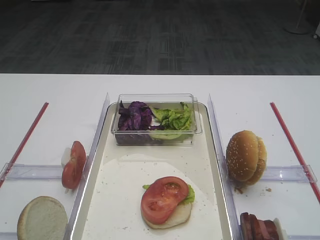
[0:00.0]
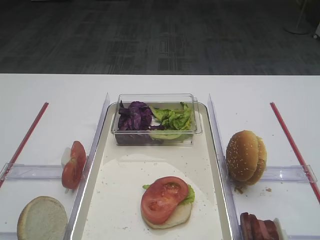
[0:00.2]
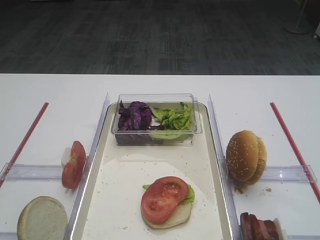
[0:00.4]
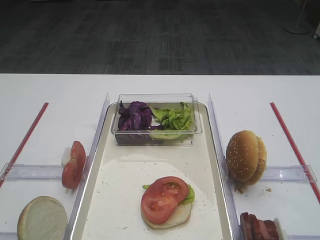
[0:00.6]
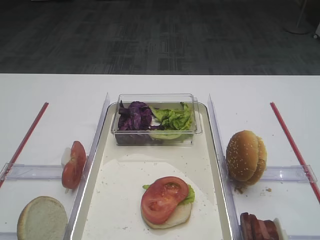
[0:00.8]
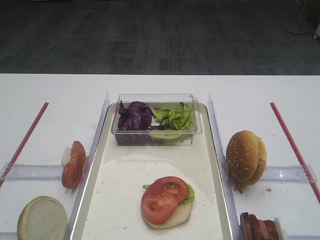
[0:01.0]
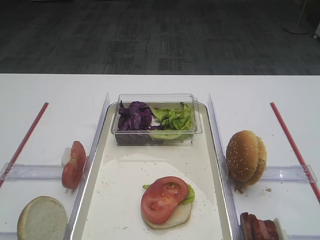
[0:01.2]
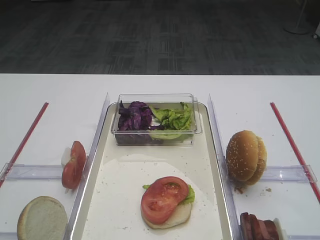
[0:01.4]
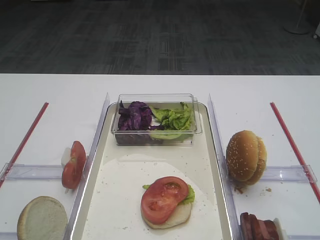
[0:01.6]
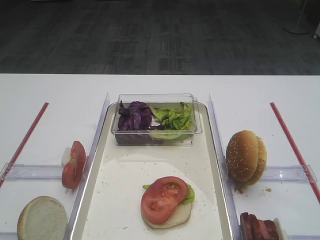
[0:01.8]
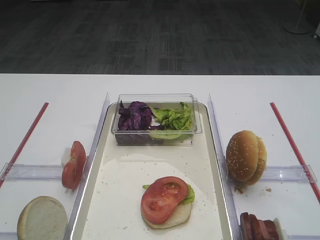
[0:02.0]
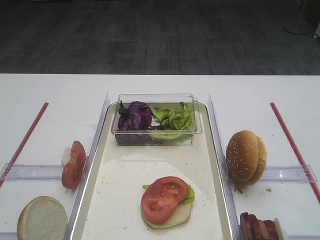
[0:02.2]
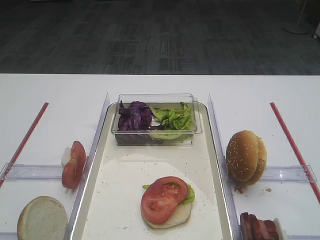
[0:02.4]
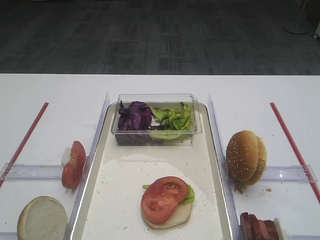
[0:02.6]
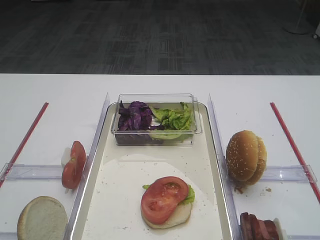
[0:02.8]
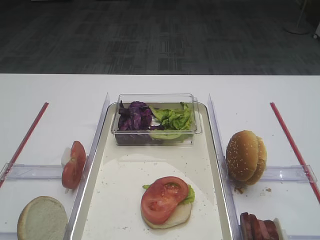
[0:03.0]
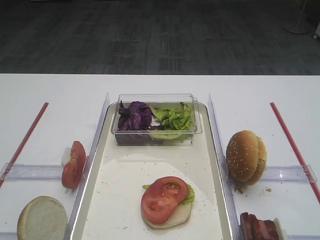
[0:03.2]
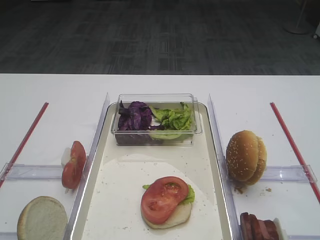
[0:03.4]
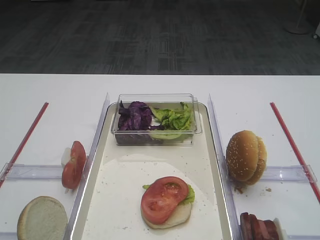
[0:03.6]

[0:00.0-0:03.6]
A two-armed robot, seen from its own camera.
0:01.8 to 0:03.6: Both grippers stay put.

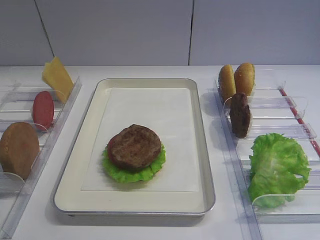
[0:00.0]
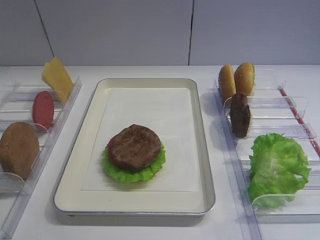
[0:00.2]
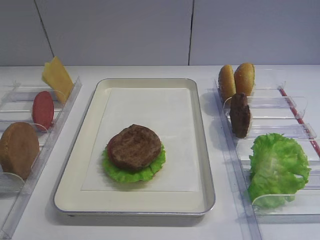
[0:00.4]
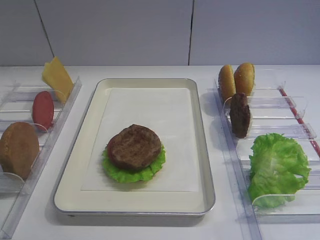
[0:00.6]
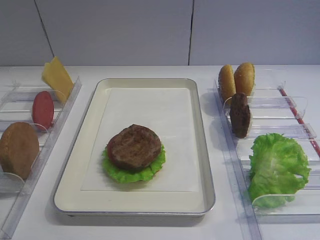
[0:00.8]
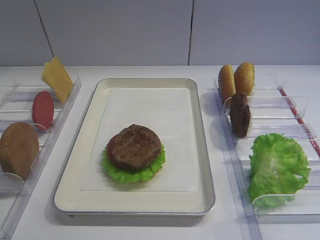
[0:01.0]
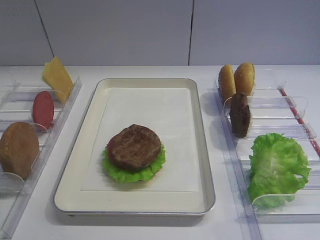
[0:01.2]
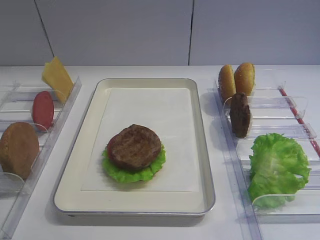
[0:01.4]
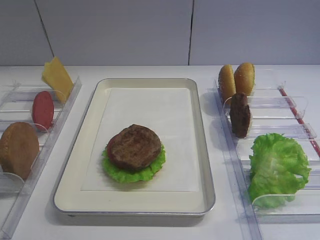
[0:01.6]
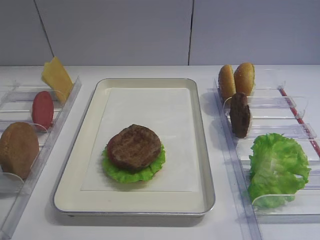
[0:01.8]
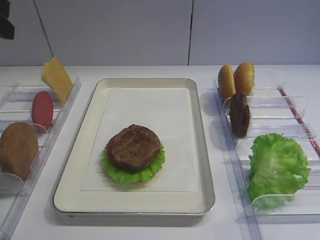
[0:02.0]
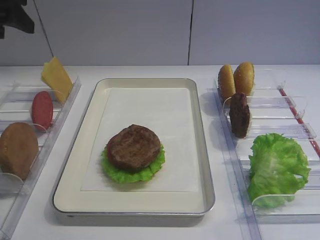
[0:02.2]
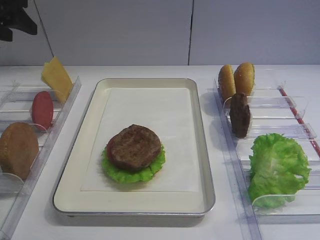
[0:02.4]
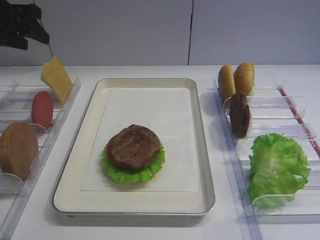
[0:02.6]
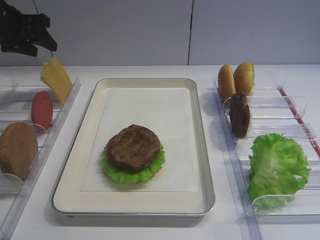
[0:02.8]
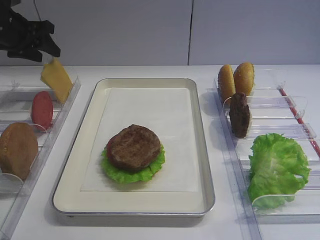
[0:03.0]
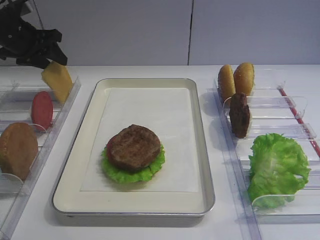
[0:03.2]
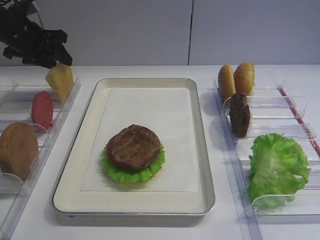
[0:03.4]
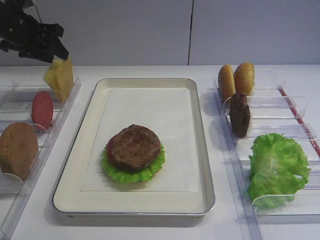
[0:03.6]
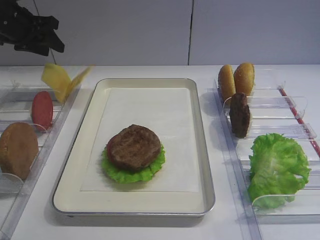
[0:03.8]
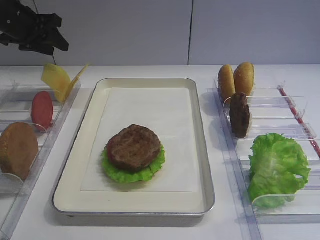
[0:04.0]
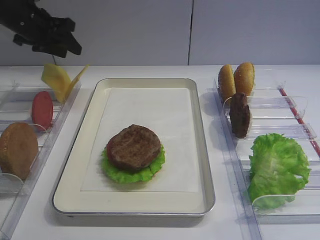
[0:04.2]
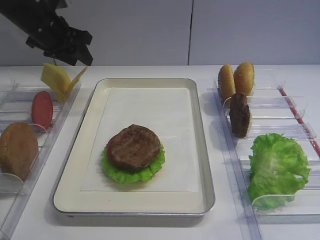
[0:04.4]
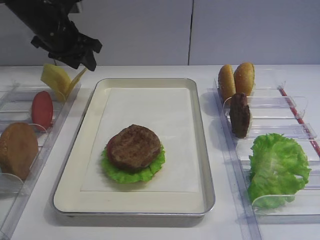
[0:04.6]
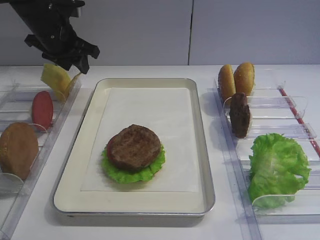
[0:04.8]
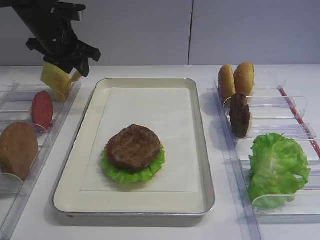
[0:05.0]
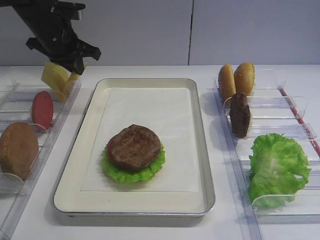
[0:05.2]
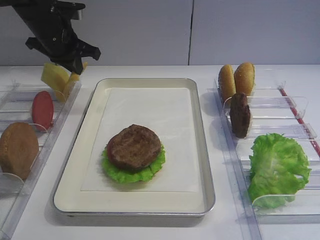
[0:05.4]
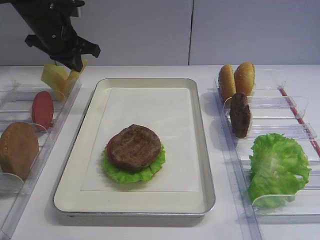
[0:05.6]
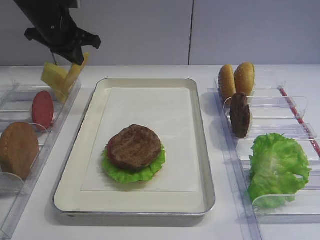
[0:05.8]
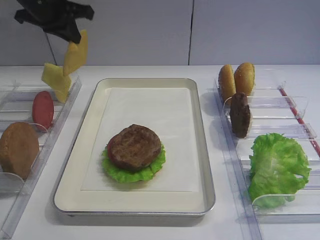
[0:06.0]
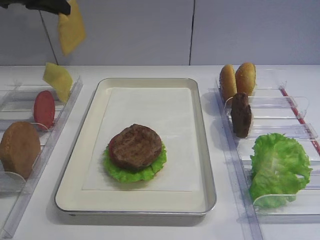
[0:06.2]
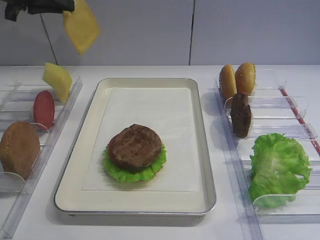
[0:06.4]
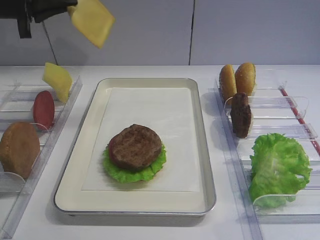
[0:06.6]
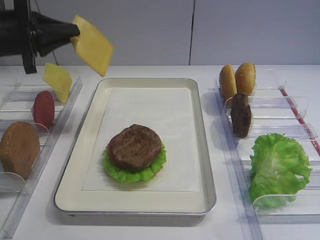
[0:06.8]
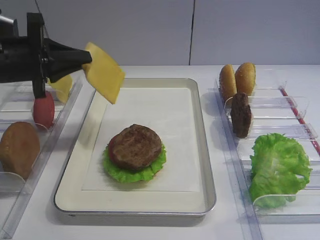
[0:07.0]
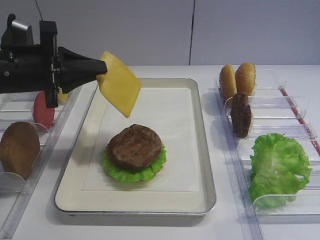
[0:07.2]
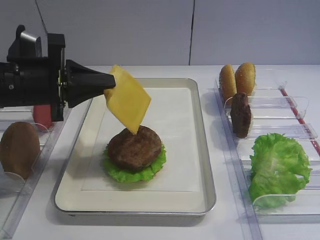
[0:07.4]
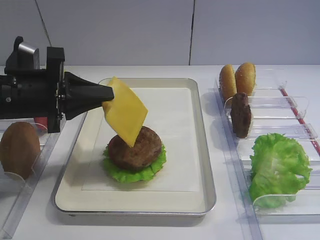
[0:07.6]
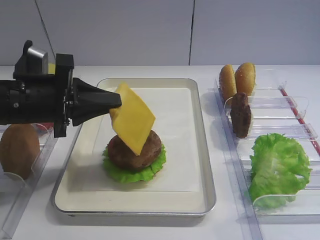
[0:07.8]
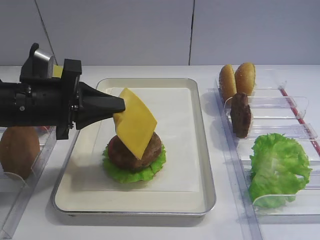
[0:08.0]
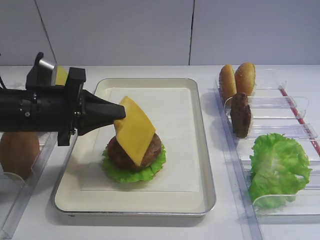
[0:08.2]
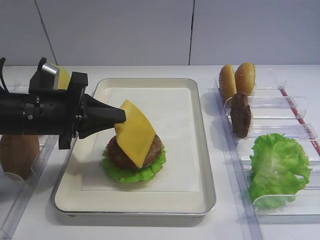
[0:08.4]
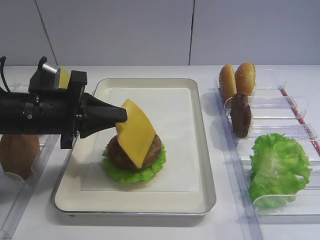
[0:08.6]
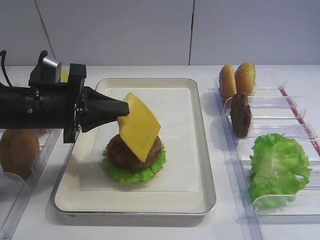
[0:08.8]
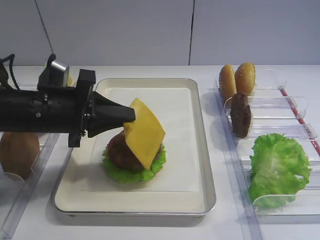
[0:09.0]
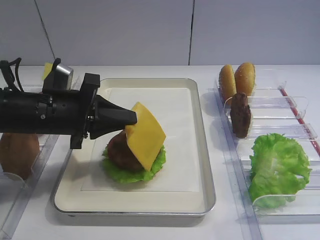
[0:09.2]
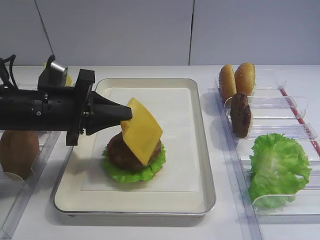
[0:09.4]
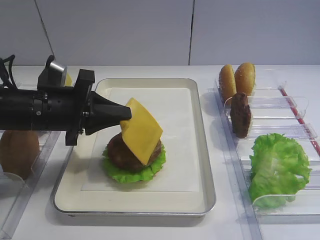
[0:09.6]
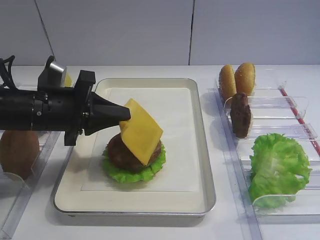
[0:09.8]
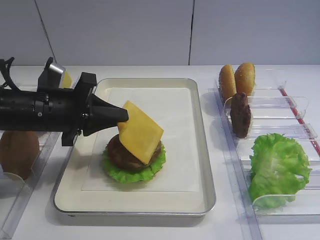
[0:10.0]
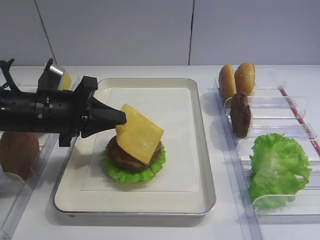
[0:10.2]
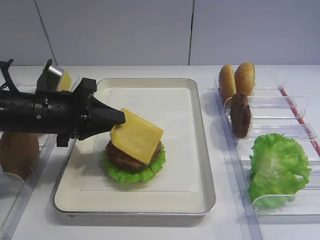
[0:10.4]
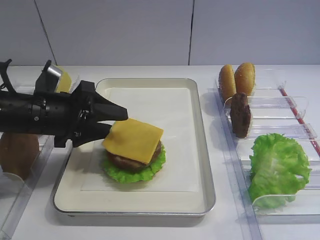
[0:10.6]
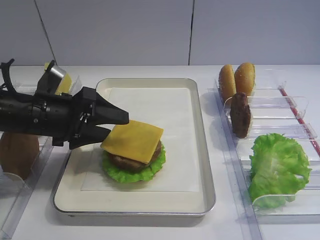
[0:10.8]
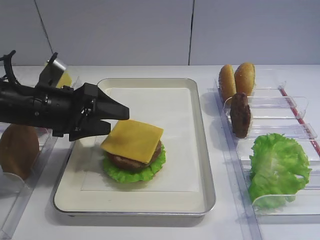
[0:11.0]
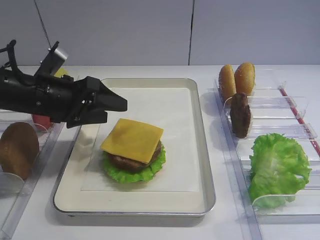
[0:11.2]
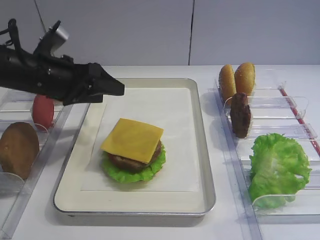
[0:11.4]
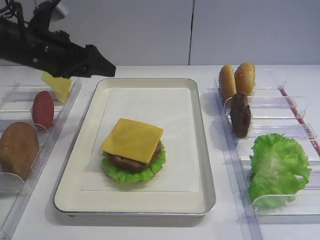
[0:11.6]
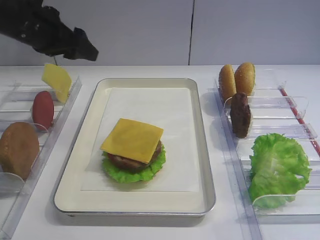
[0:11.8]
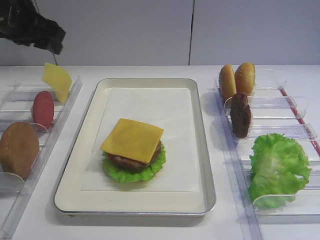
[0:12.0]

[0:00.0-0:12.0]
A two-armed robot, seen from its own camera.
Step, 0:00.0 to 0:05.8: Pick up the cheese slice with the left gripper.
Step, 0:06.0 to 0:11.8: Place the cheese slice on the cutlet with the left gripper.
0:01.6 to 0:03.0: The left gripper is displaced forward by about 35 cm.
0:03.0 to 0:04.4: The left gripper moves to the right, some 10 cm.
0:04.4 to 0:06.0: The left gripper travels upward by some 5 cm, and closes.
0:06.0 to 0:07.6: The left gripper shifts approximately 20 cm backward and downward.
0:07.6 to 0:10.4: The grippers move only a little.
0:10.4 to 0:12.0: The left gripper travels upward, forward and to the left by roughly 15 cm, and opens up.

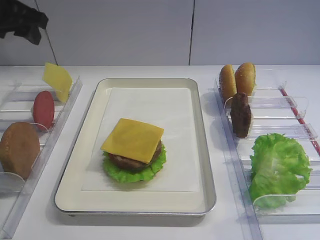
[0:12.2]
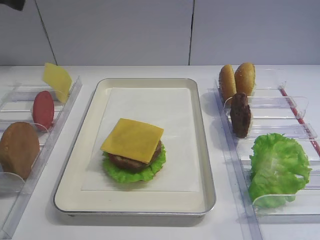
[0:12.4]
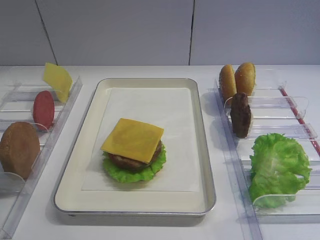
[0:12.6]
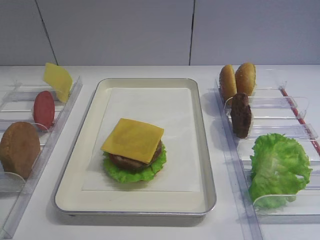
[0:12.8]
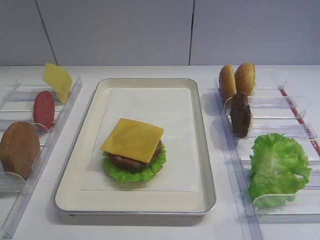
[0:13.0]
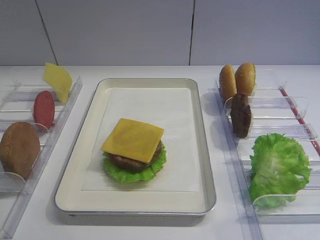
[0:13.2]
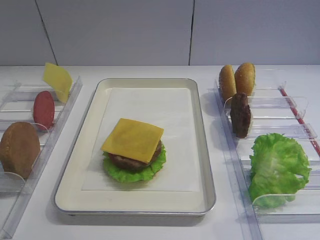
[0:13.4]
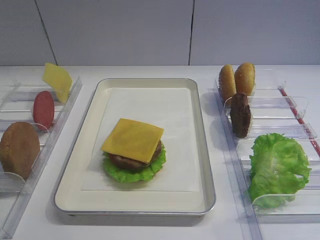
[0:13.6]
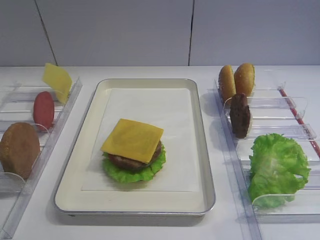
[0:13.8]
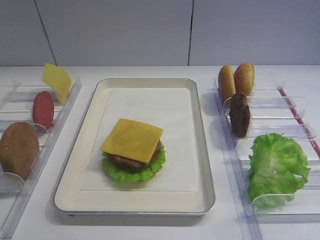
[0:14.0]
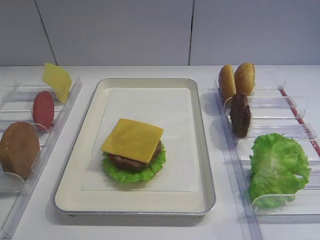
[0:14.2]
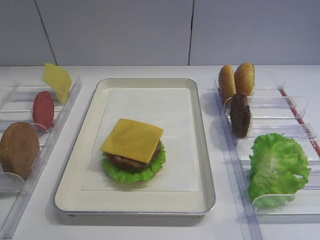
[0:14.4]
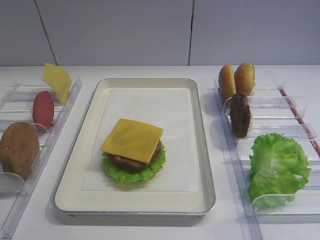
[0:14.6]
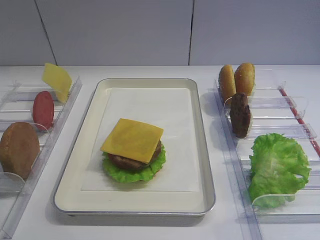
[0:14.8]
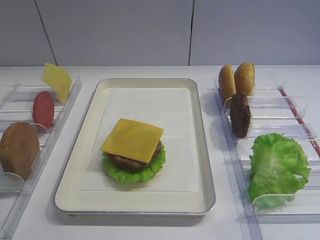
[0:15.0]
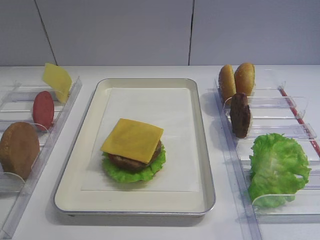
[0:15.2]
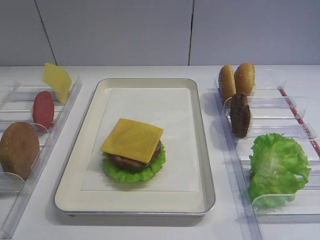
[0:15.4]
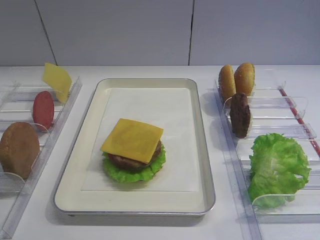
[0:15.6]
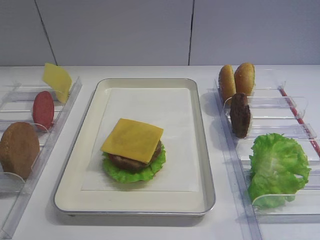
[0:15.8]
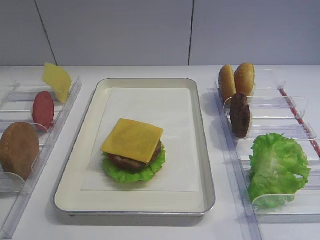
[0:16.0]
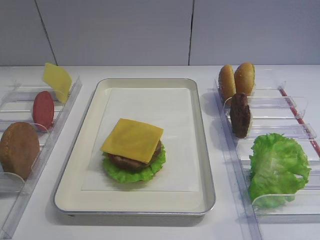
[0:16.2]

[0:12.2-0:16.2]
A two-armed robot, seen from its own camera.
0:12.2 to 0:13.6: The left gripper moves backward, some 35 cm.
0:14.8 to 0:16.2: Neither gripper changes place.

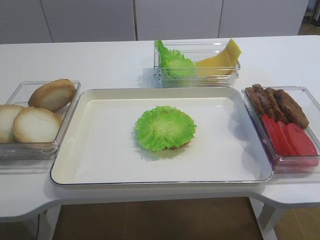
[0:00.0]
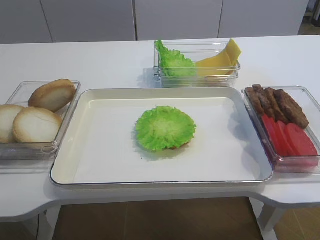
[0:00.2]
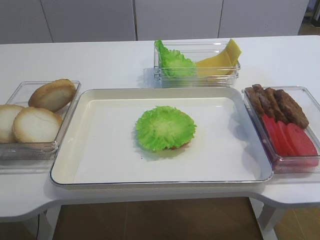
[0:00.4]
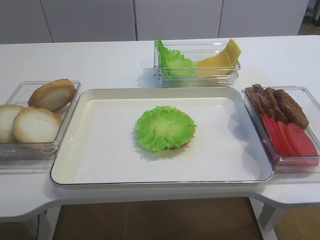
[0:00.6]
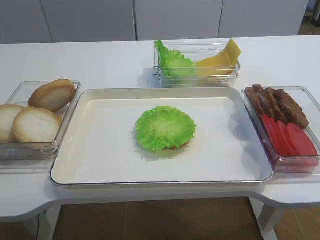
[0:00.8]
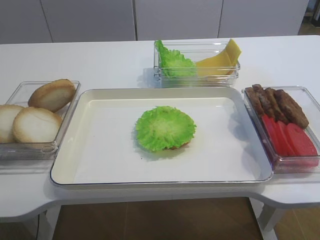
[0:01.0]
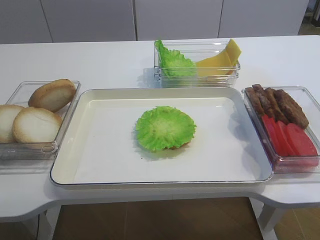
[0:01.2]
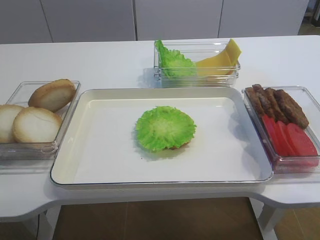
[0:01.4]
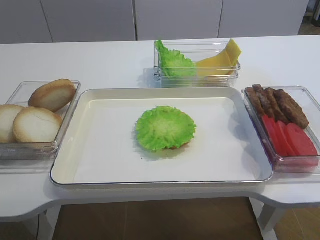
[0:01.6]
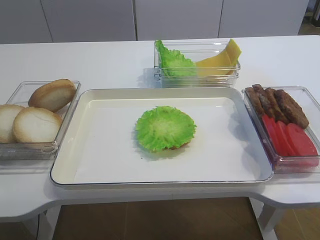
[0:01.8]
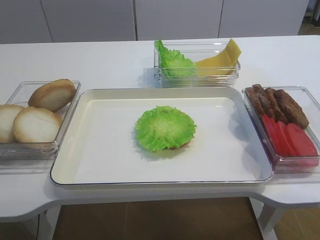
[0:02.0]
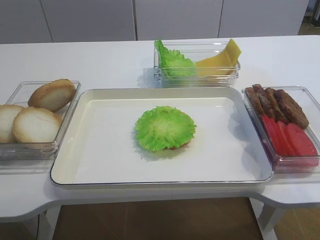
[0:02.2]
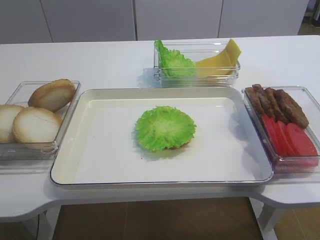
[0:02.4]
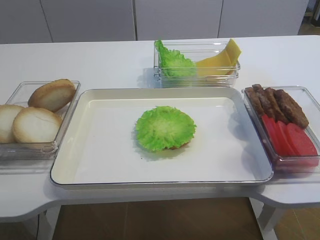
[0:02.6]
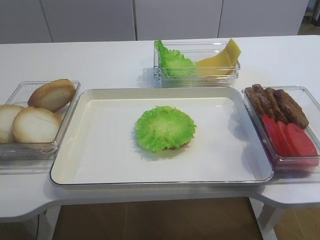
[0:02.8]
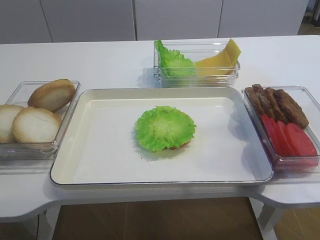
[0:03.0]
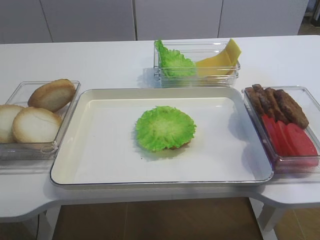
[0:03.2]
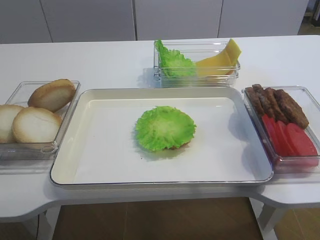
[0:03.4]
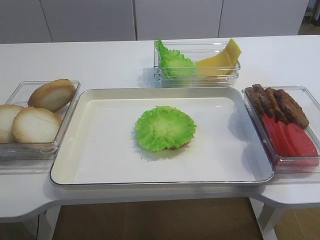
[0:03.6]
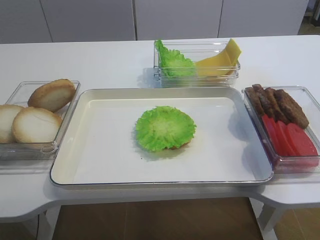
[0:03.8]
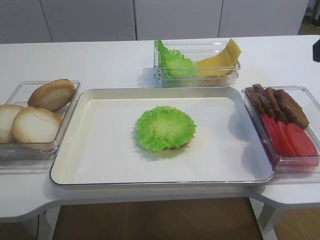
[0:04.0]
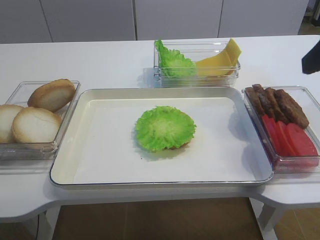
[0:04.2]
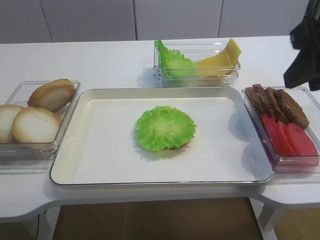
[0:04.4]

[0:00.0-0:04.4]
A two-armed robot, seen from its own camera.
0:01.4 to 0:03.0: The right gripper travels upward and forward by about 10 cm.
0:03.0 to 0:04.4: The right gripper heads forward, covering approximately 15 cm.
